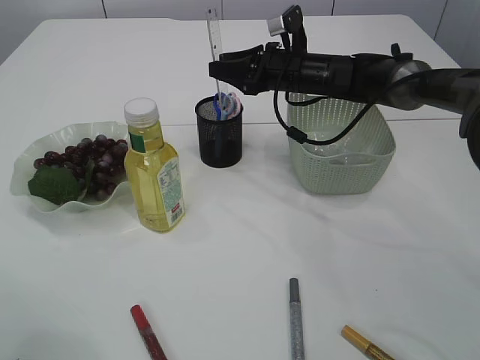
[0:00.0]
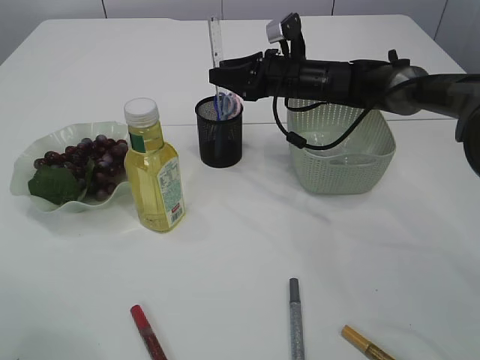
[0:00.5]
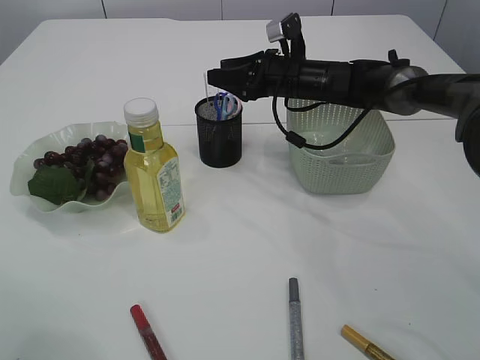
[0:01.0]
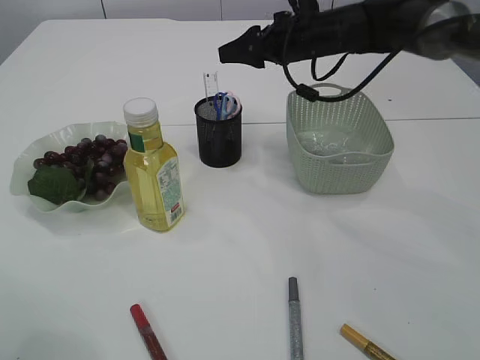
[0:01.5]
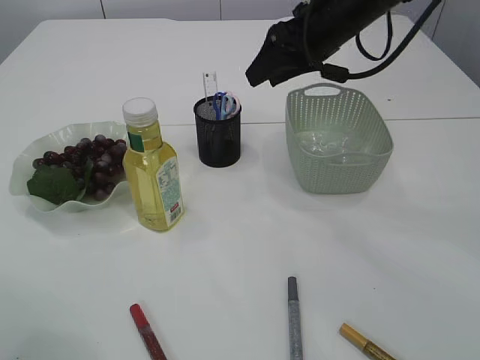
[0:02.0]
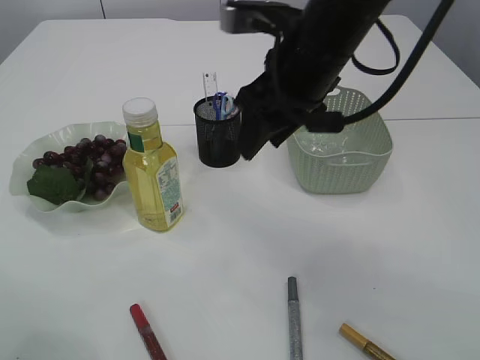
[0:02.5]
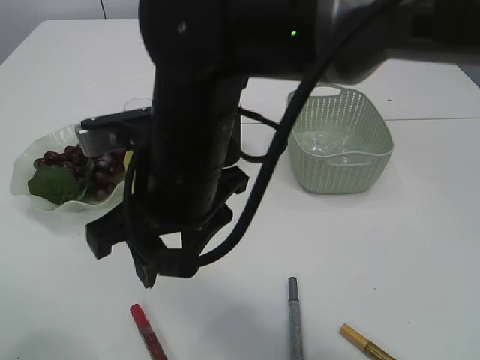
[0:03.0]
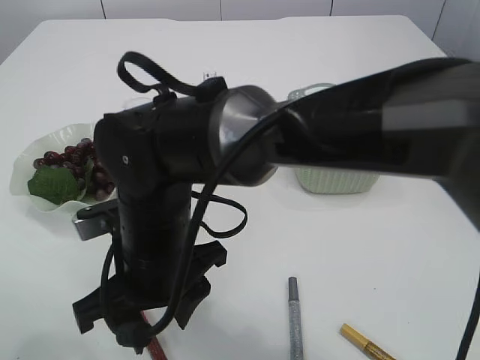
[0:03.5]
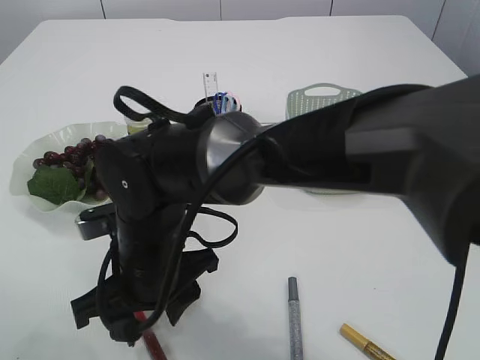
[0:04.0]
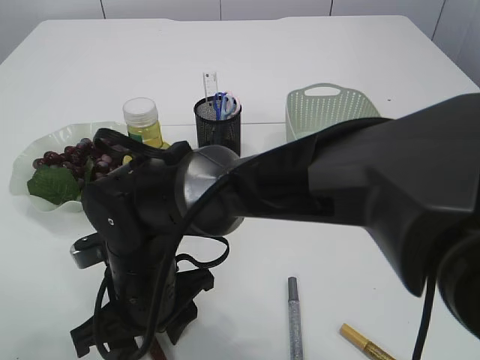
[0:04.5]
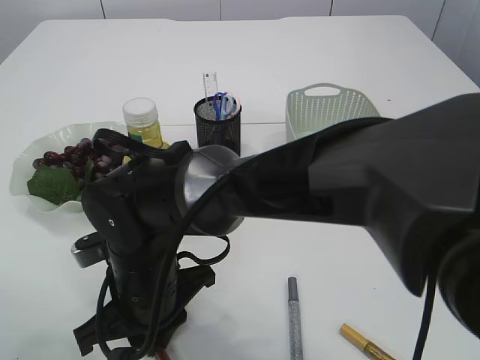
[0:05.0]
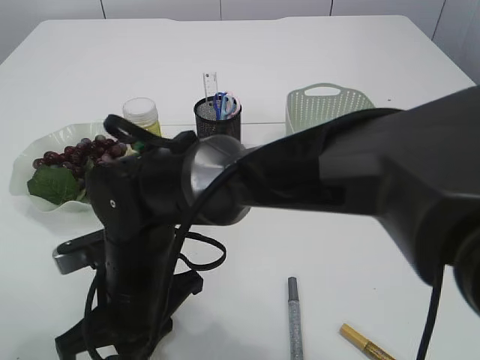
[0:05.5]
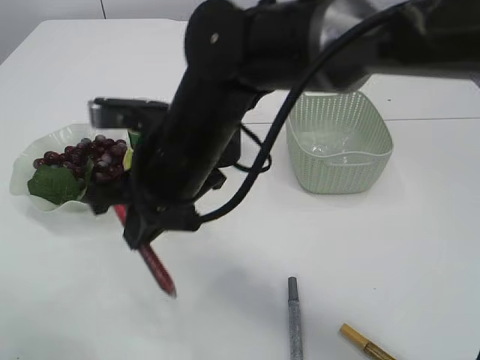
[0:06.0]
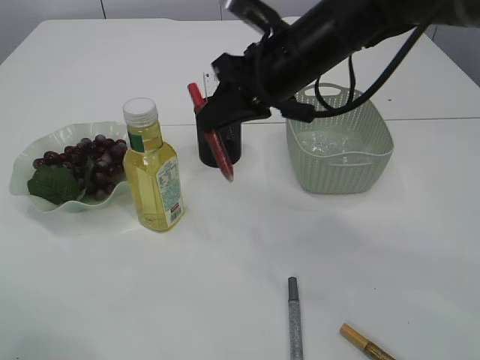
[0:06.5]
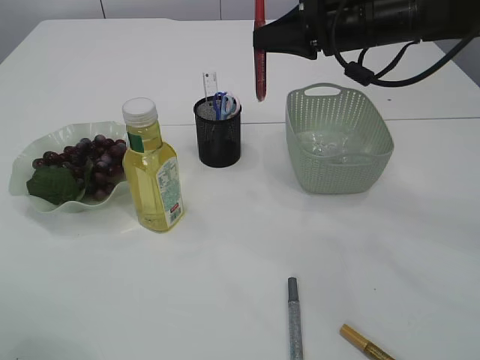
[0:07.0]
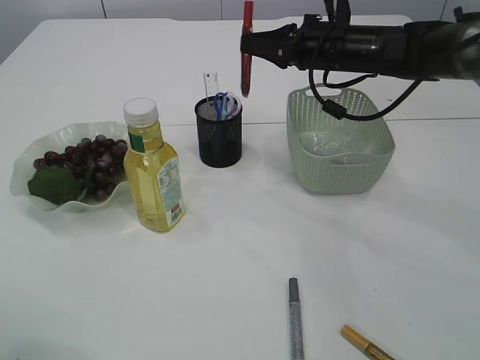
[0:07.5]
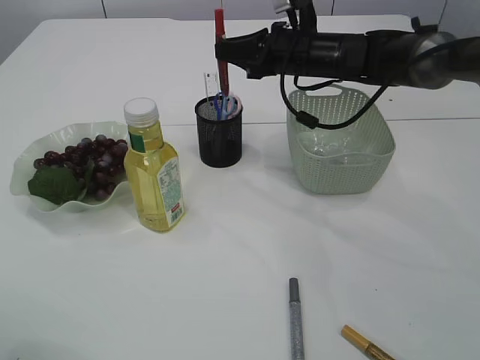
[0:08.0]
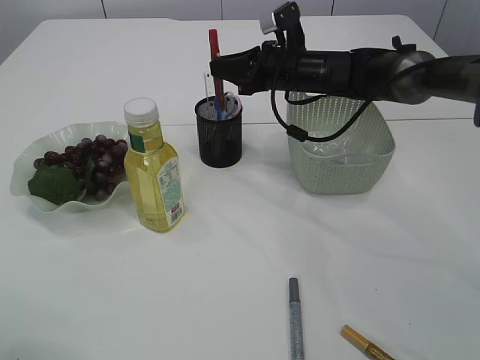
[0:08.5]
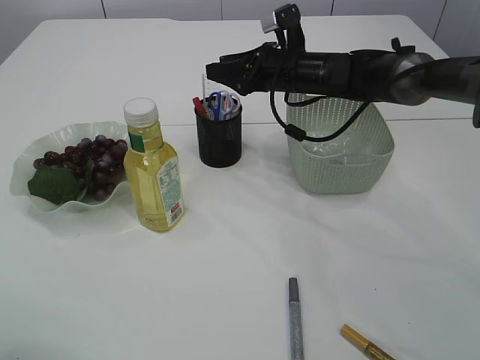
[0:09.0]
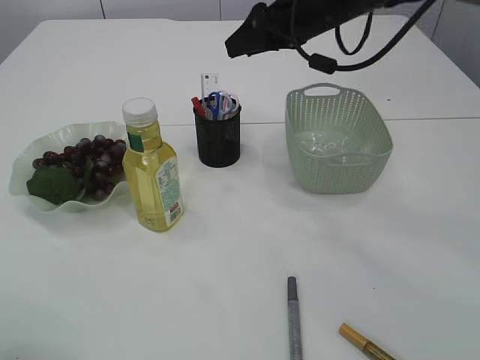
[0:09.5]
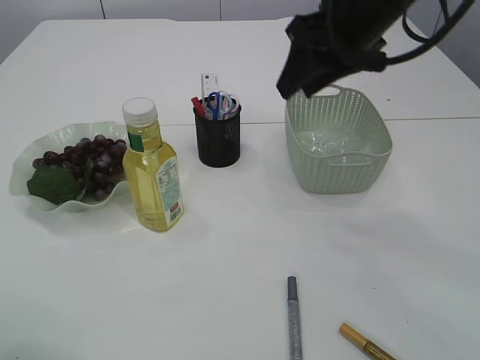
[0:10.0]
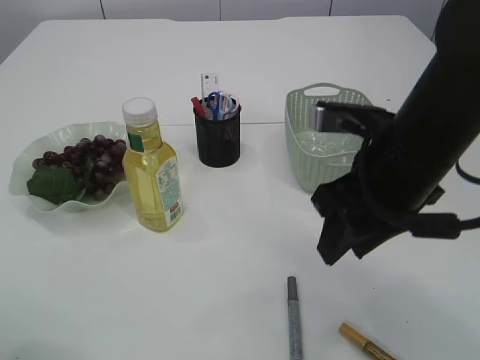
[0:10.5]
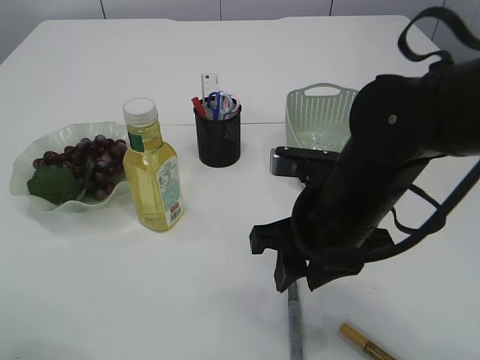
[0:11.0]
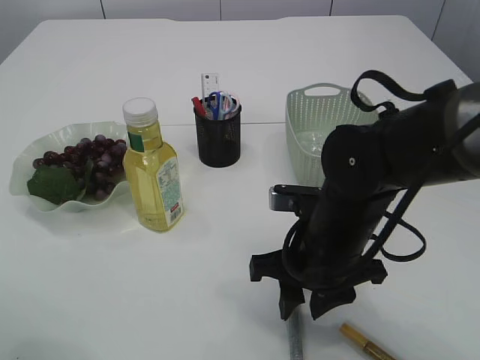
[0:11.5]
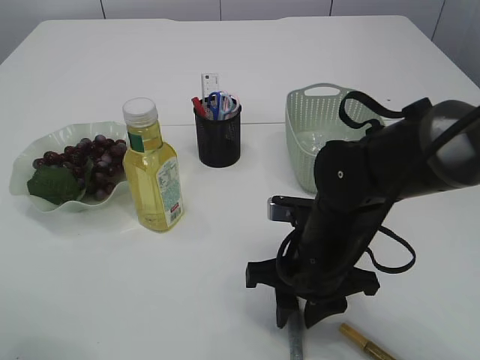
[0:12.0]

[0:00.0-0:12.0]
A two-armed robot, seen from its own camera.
Step, 0:02.0 to 0:05.5: pick up the red glue.
Step, 0:06.0 to 0:09.0: place the red glue into the pen holder.
0:00.0 to 0:02.0: The right gripper goes roughly 15 cm upward and backward.
0:02.0 to 0:04.0: The right gripper goes approximately 35 cm to the left, backward and downward.
0:04.0 to 0:06.0: The right gripper moves upward, some 10 cm, and closes its fingers.
0:06.0 to 0:08.0: The right gripper is displaced forward and to the right by approximately 25 cm.
0:08.0 to 0:10.0: The right gripper moves backward and upward, approximately 15 cm, and opens up.
0:10.0 to 0:12.0: The right gripper travels downward and backward by roughly 25 cm.

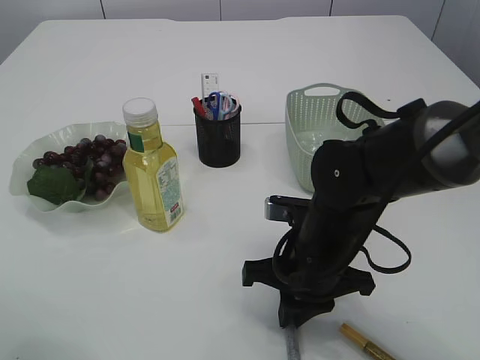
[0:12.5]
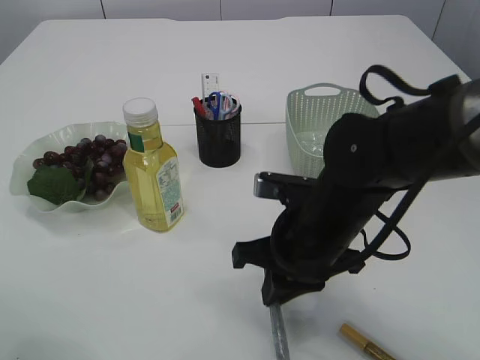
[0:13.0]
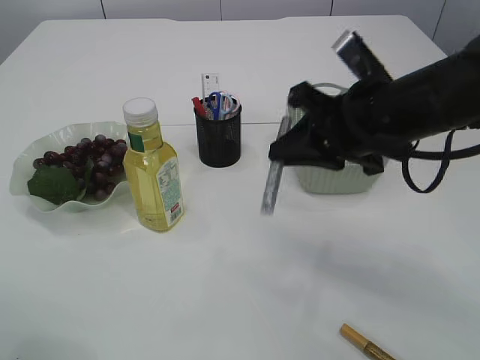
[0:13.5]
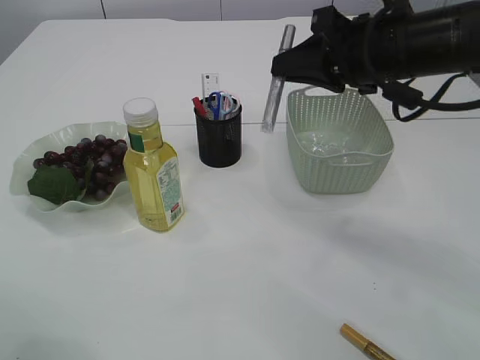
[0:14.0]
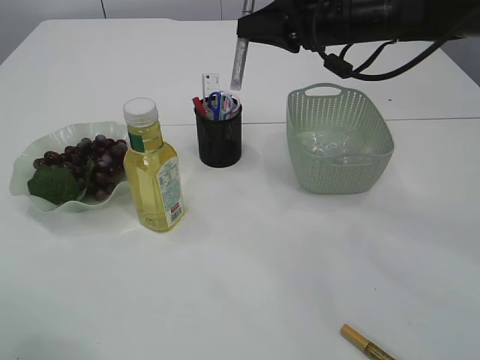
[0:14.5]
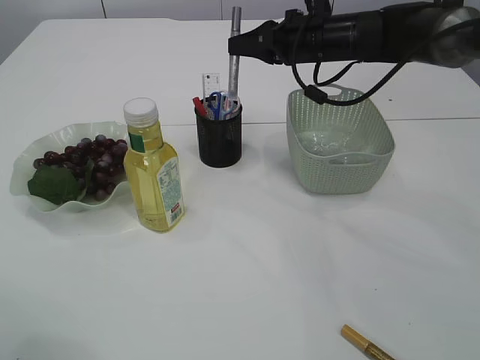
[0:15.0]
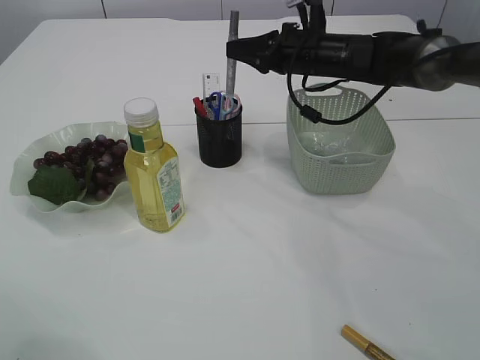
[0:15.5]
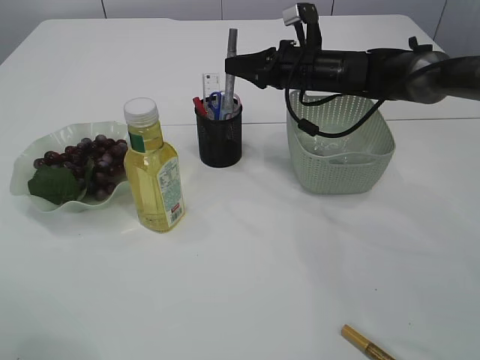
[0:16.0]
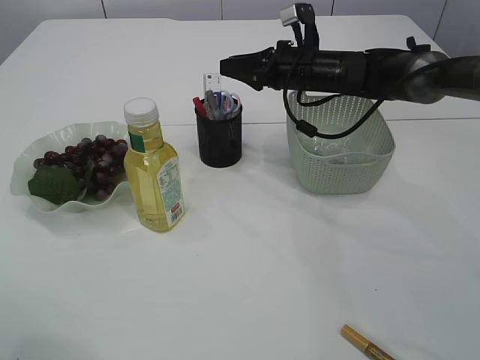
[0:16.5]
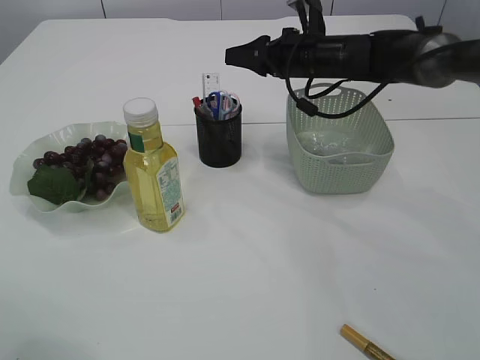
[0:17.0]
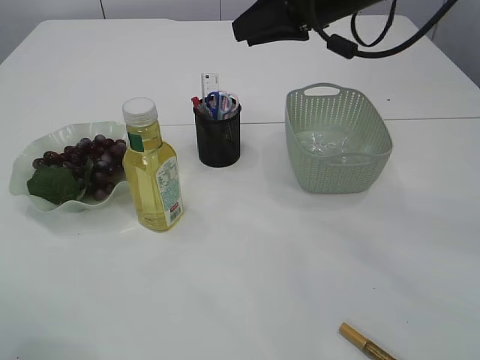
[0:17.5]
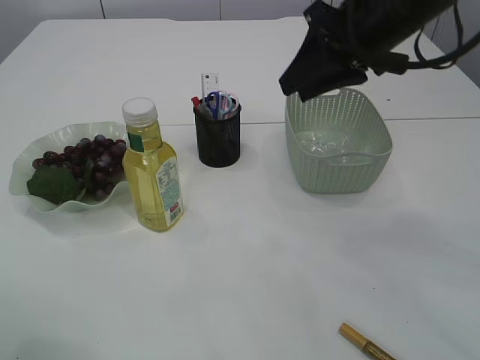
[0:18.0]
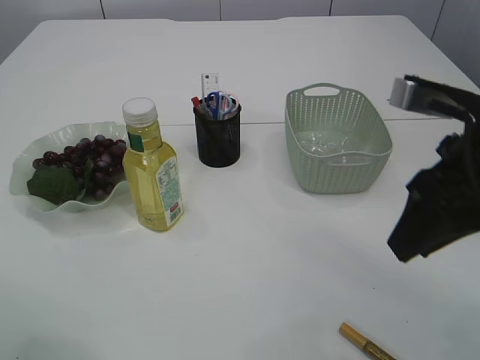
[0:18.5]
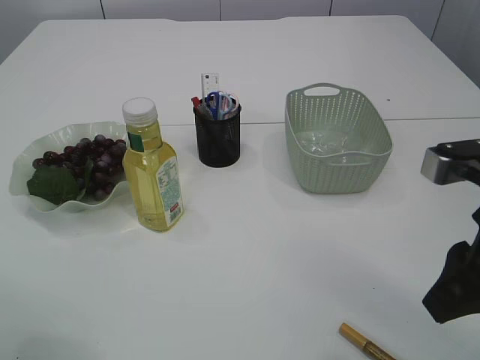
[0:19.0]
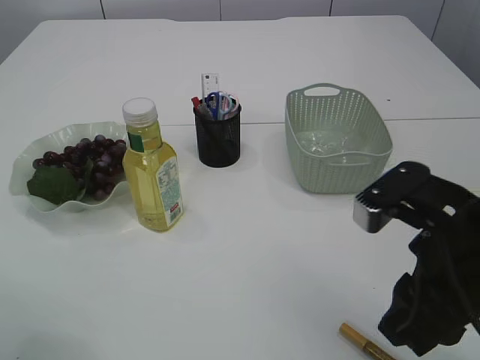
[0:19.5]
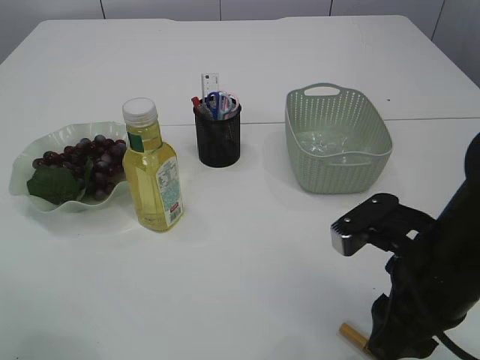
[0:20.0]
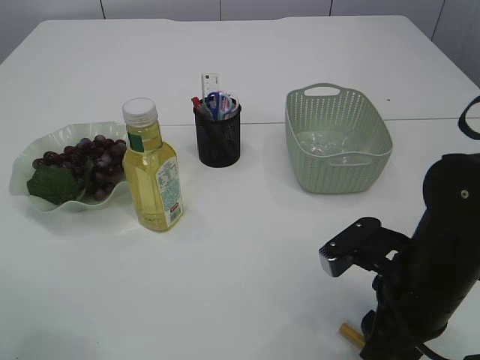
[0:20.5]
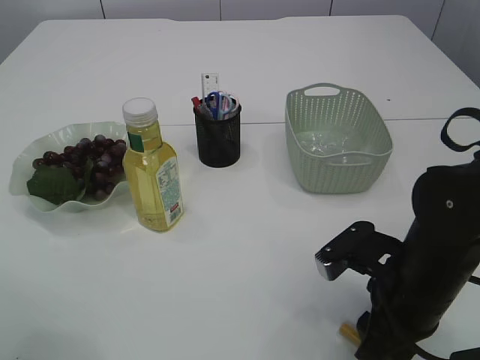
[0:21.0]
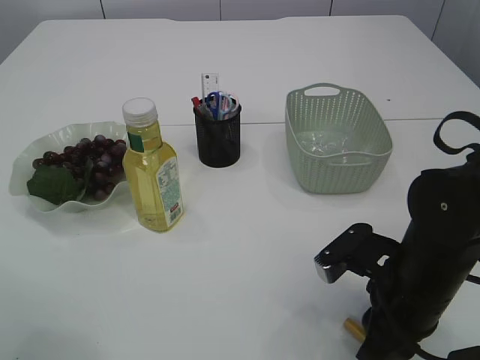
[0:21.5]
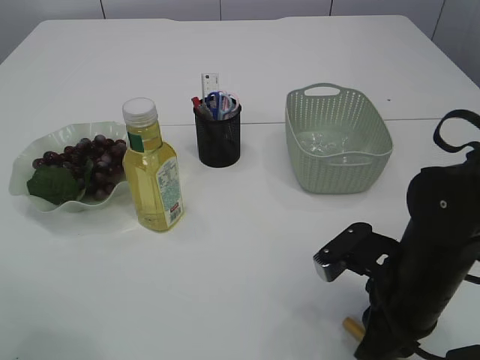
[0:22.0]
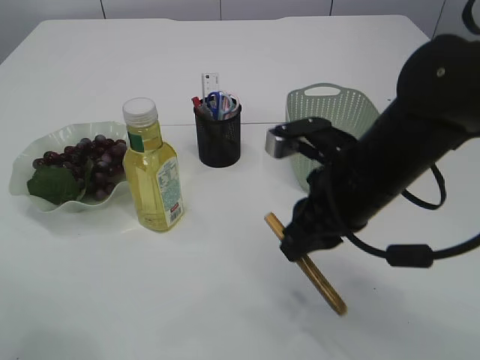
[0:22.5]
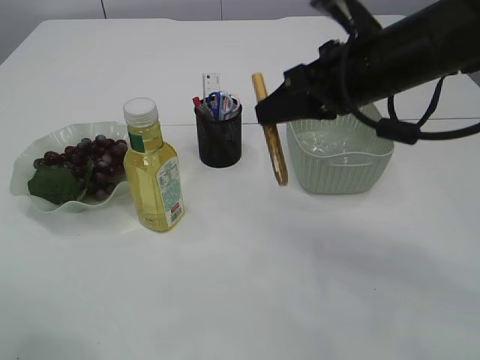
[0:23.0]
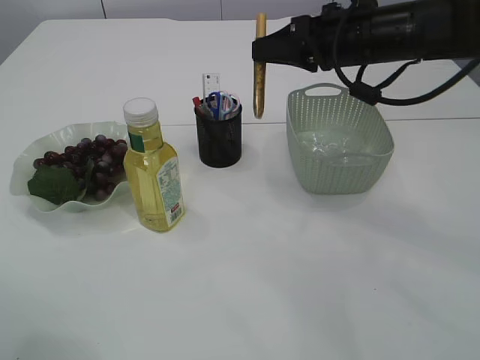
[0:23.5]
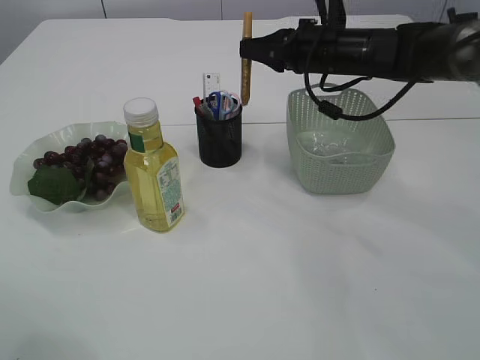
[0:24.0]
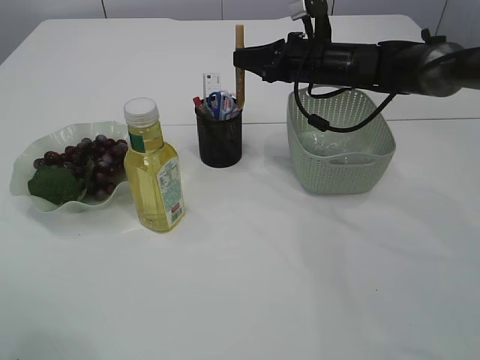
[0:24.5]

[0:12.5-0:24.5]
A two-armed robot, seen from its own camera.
Step, 0:13.5 to 0:17.0: place the silver glue into the pen holder.
Step, 0:17.5 to 0:22.0: pick up the yellow glue.
0:12.5 to 0:14.5: The right gripper is displaced upward and forward by roughly 25 cm.
0:14.5 to 0:16.5: The right gripper travels downward and forward by some 10 cm.
0:16.5 to 0:18.5: The right gripper is displaced backward by approximately 25 cm.
0:18.5 to 0:20.5: The right gripper shifts about 15 cm downward.
0:20.5 to 0:22.5: The right gripper travels upward and forward by some 10 cm, and closes up.
0:22.5 to 0:24.5: The right gripper moves forward, some 25 cm.

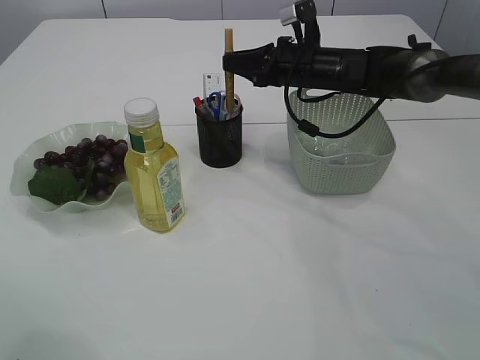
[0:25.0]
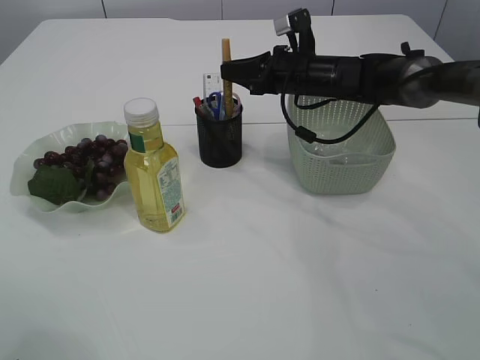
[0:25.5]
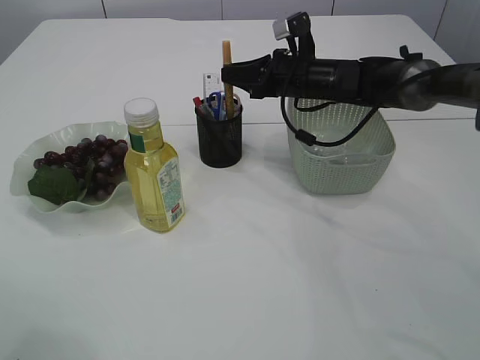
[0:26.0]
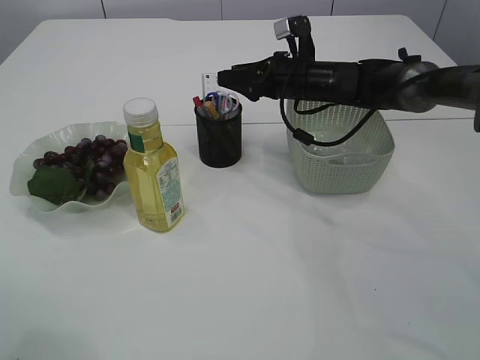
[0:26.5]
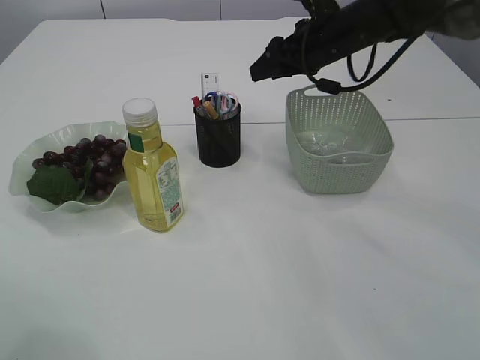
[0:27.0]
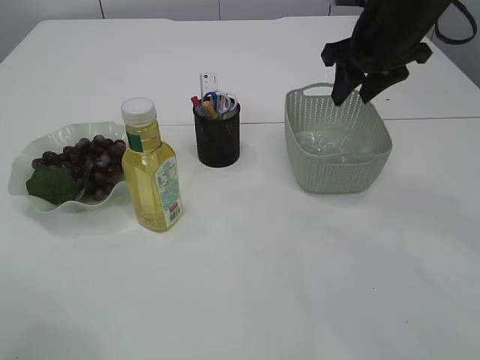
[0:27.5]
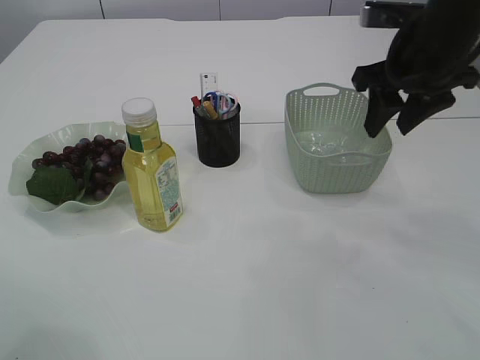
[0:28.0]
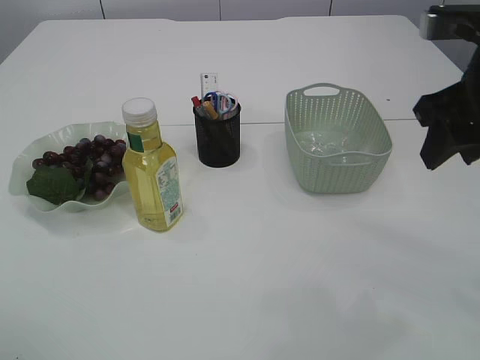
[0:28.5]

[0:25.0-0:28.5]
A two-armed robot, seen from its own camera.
0:25.0 to 0:27.0: The right gripper travels upward by roughly 5 cm, and opens its fingers.
0:27.0 to 0:28.5: The right gripper is displaced backward and to the right by some 20 cm.
